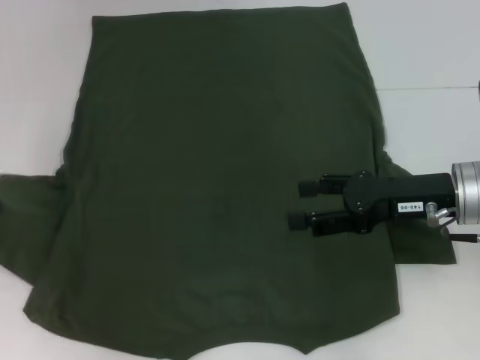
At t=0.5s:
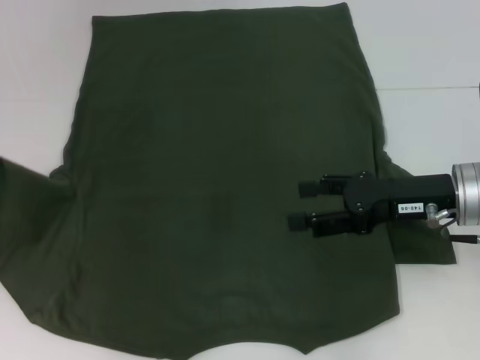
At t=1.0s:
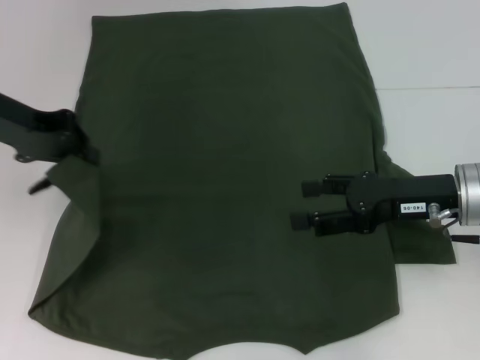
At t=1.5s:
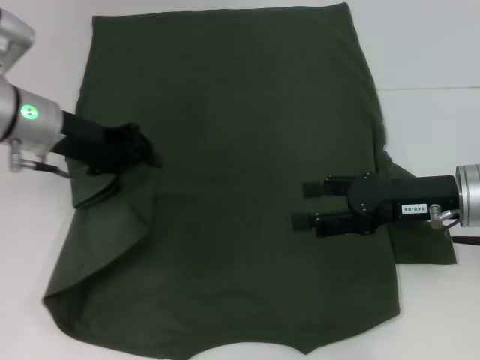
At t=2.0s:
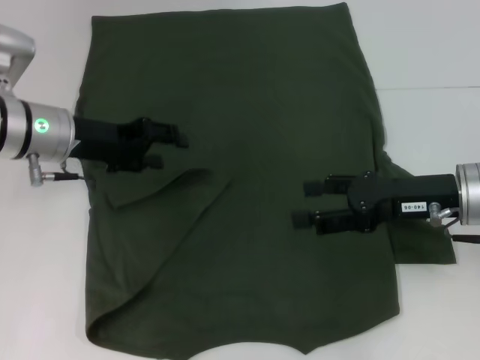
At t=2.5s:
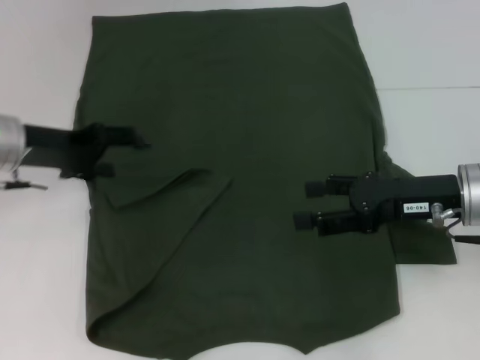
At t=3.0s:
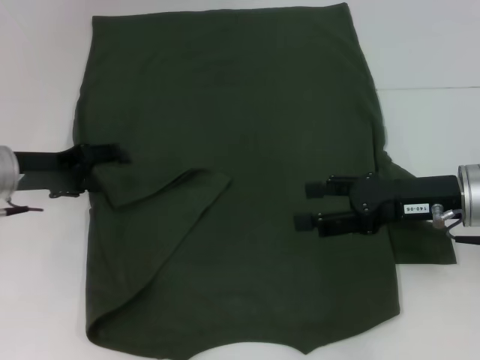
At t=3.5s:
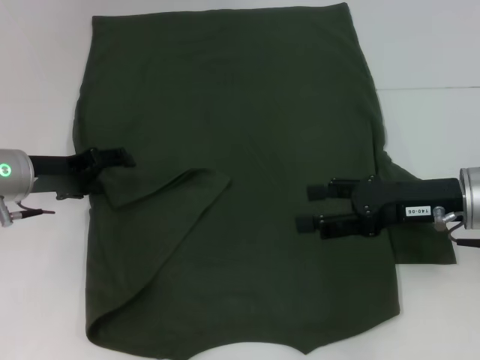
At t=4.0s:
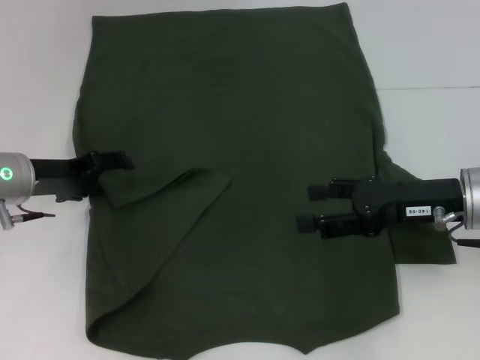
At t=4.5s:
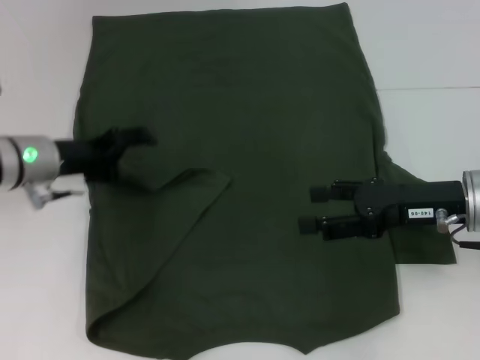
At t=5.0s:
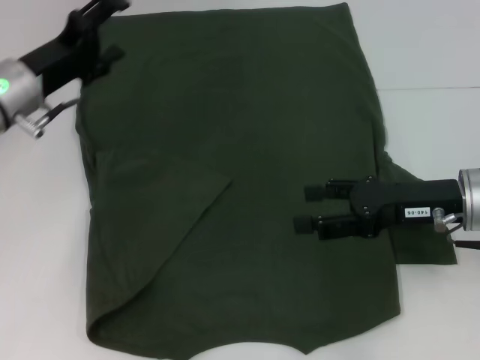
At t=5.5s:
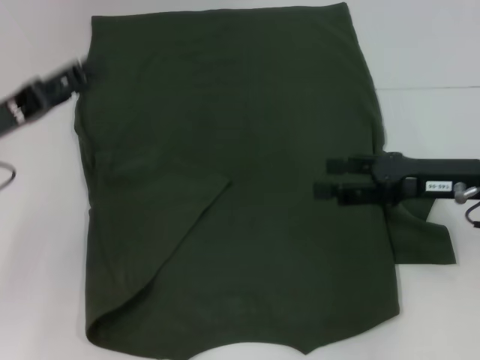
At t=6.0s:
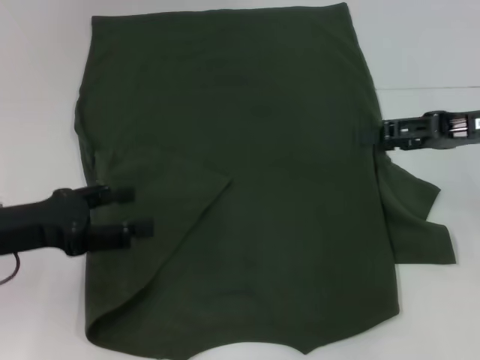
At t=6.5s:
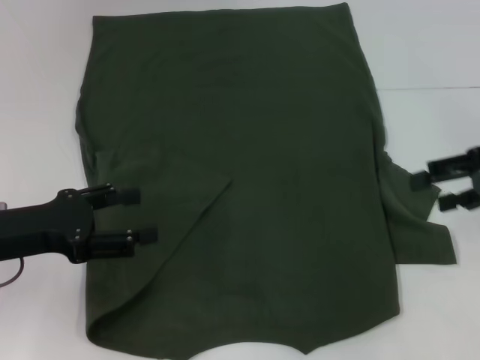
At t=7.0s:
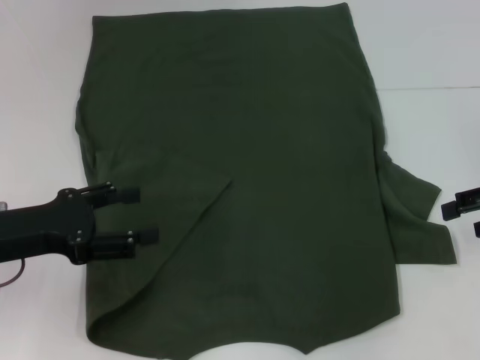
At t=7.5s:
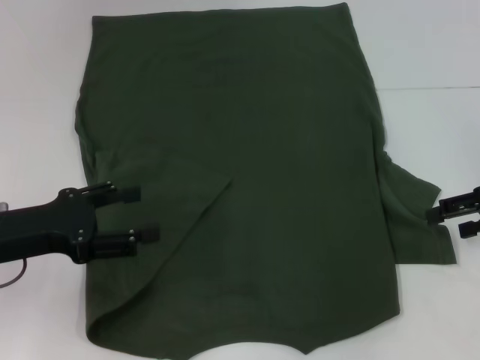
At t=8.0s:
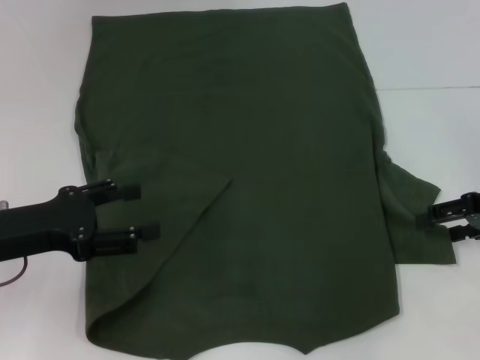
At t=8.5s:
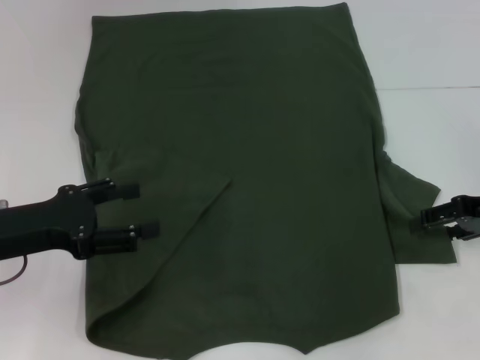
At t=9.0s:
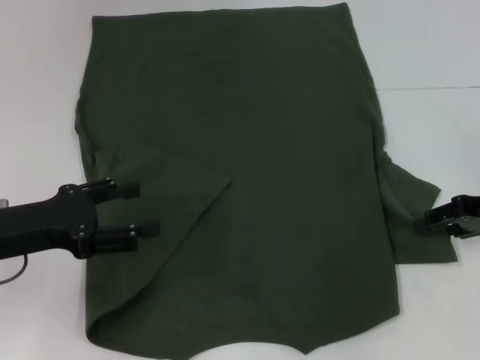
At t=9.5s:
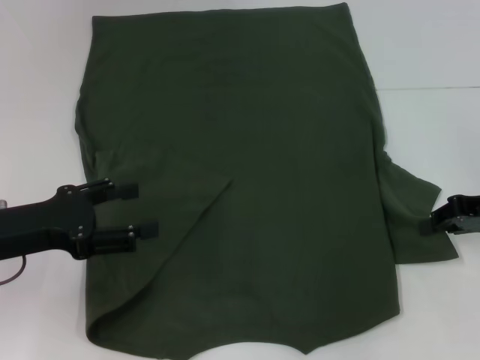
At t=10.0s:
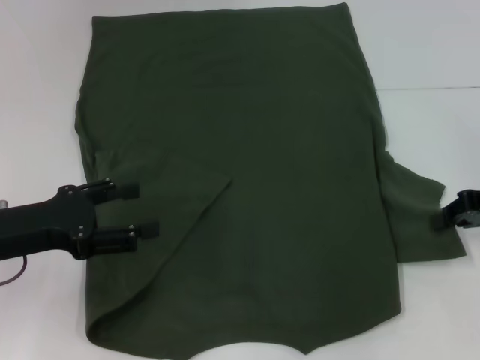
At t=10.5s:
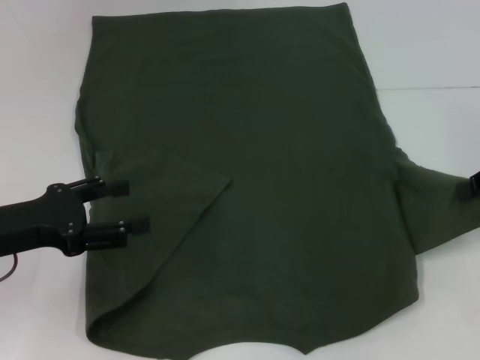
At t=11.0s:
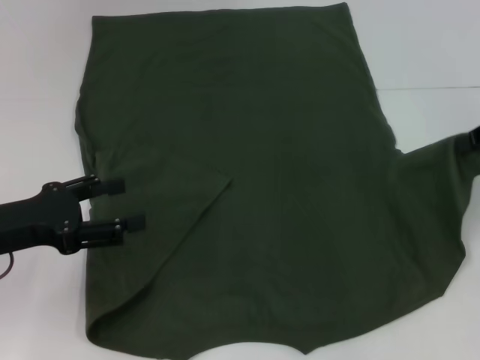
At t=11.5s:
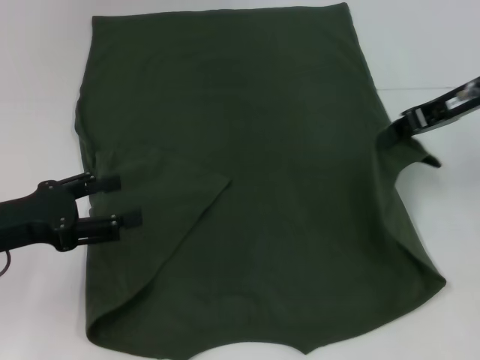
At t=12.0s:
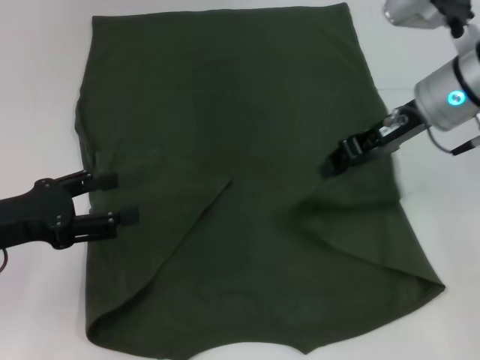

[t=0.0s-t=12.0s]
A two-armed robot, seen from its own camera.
Step, t=0.0s to t=5.0s: Fold the bottom left sleeve with your left hand.
t=0.0s to t=2.0s: The left gripper moves to the right, about 15 cm, and opens its fingers.
t=2.0s to t=4.0s: The left gripper moves downward, some 5 cm, and opens its fingers.
t=4.0s to t=6.0s: The right gripper heads upward and to the right, covering approximately 10 cm. The left gripper is displaced backward by about 10 cm.
t=6.0s to t=8.0s: The right gripper goes roughly 5 cm downward.
t=8.0s to t=10.0s: The right gripper closes.
t=10.0s to t=12.0s: The right gripper heads to the left, forward and upward, covering some 15 cm.

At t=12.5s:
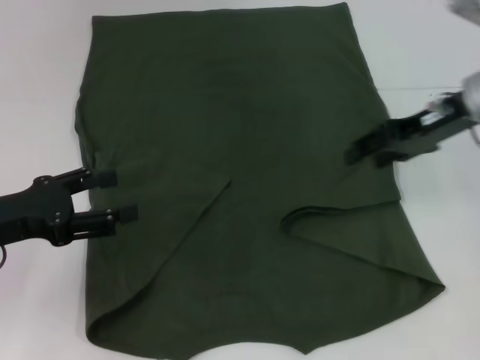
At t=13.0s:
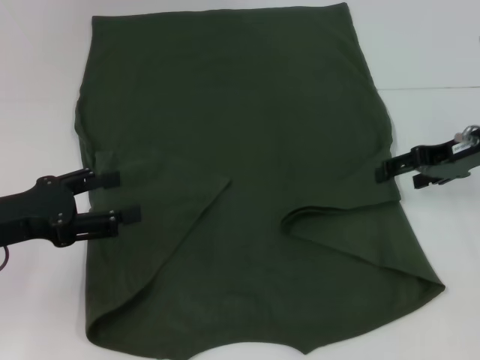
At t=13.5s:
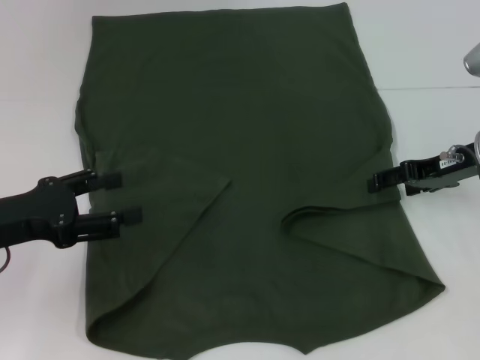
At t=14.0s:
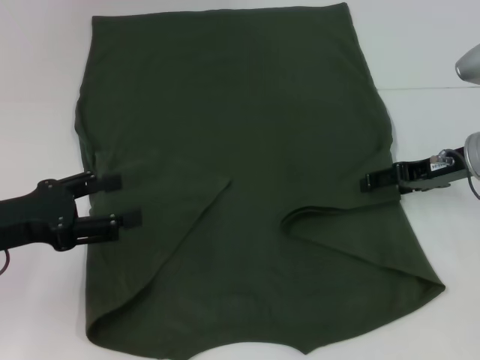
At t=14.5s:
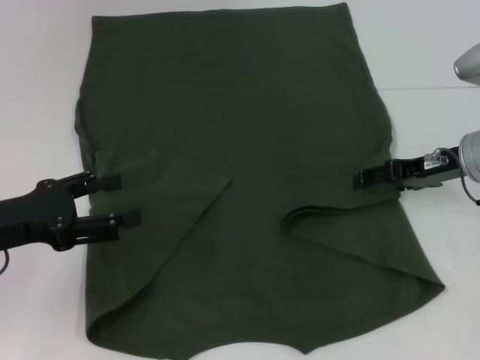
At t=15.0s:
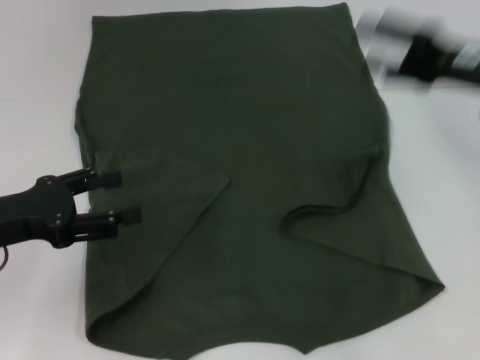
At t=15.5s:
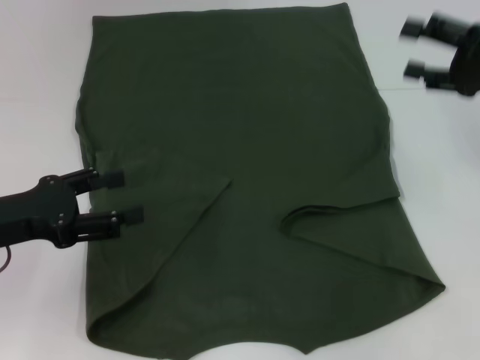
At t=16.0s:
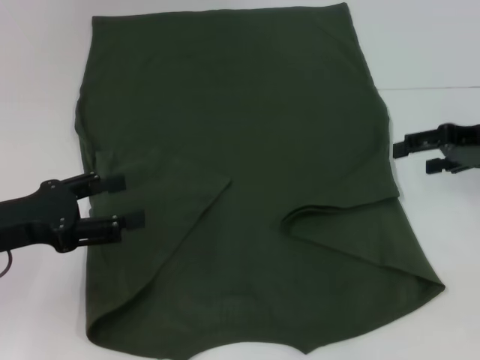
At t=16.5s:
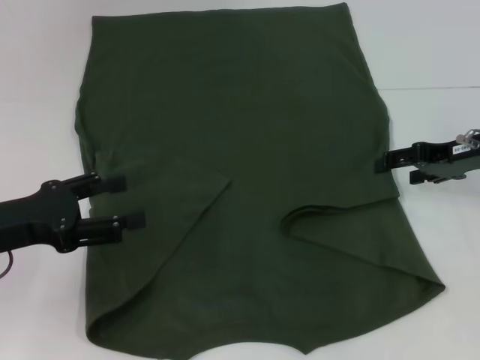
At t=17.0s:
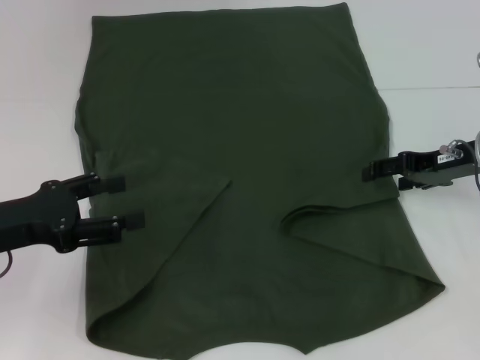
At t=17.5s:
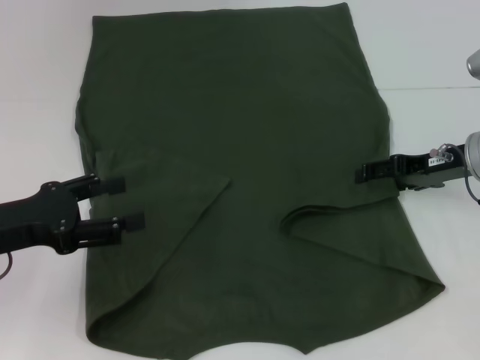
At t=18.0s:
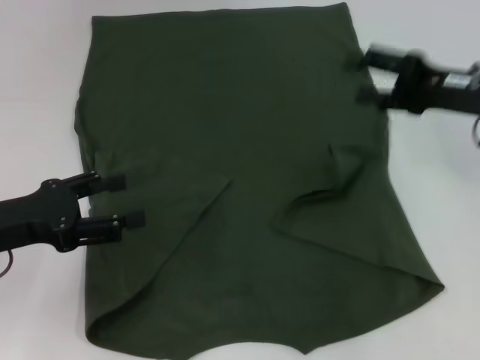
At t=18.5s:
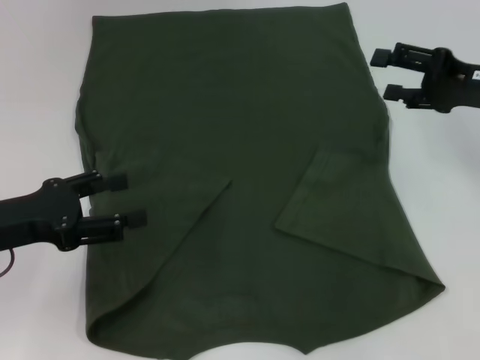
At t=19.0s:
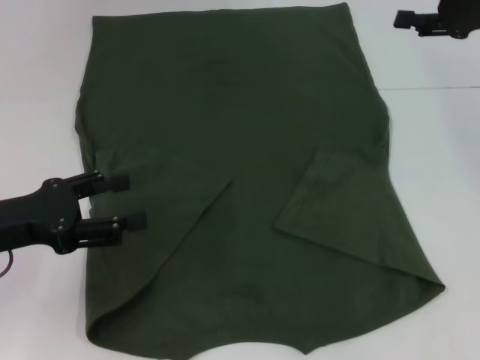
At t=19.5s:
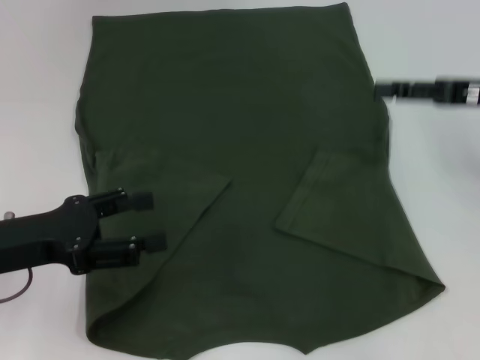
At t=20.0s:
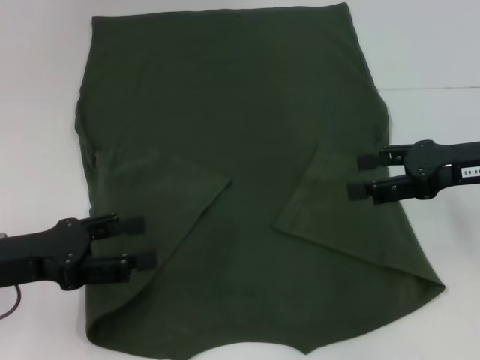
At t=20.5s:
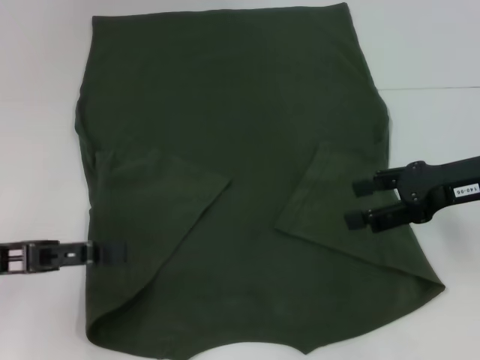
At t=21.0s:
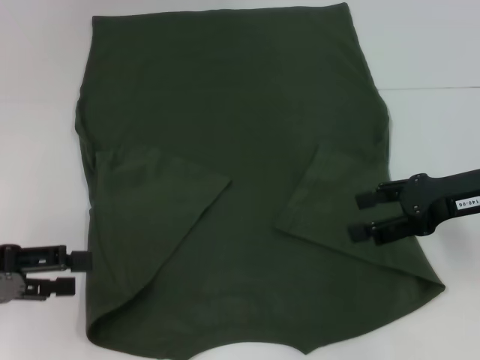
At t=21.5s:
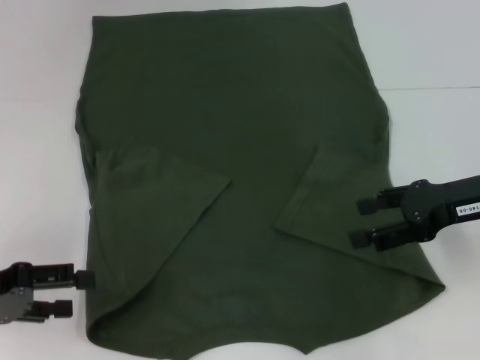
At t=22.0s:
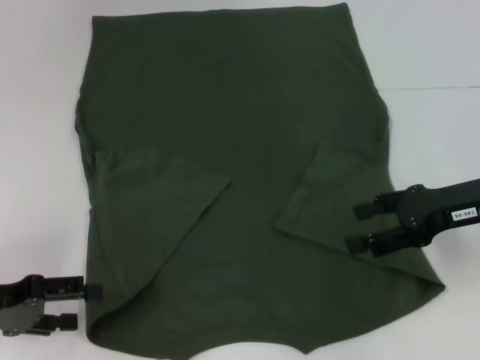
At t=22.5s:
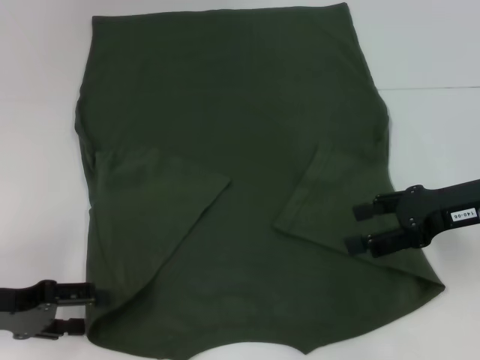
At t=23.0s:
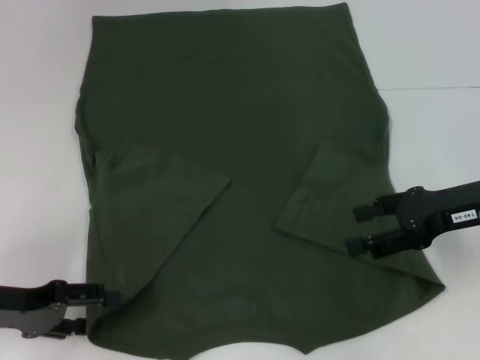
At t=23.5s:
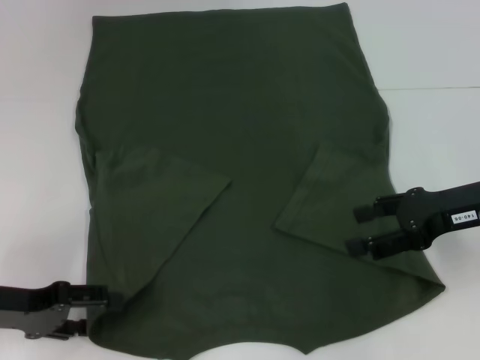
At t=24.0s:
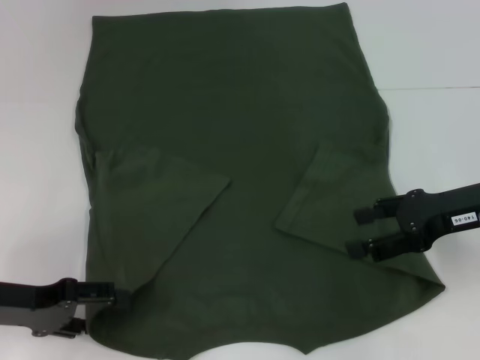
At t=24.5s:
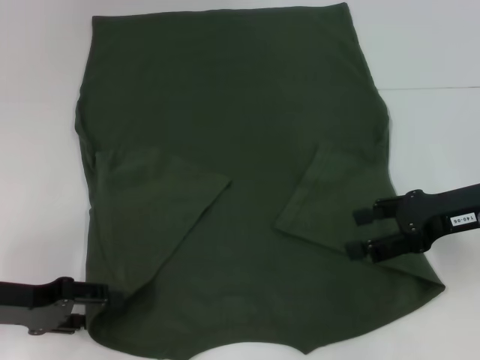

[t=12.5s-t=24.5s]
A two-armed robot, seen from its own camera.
Step, t=12.5s to t=18.5s: Fold the bottom right sleeve with your right hand.
t=12.5s to t=14.5s: The right gripper heads downward, covering some 10 cm, and opens.
t=18.5s to t=20.5s: The right gripper travels upward and back again, about 5 cm each way.
t=20.5s to t=22.5s: The left gripper goes approximately 5 cm downward.
t=22.5s to t=24.5s: The grippers stay close to where they were, moving slightly.

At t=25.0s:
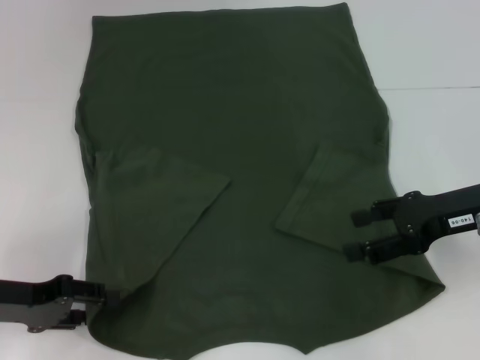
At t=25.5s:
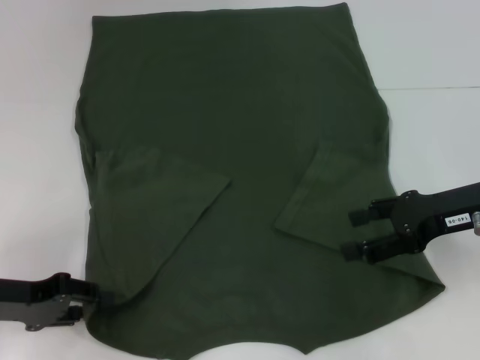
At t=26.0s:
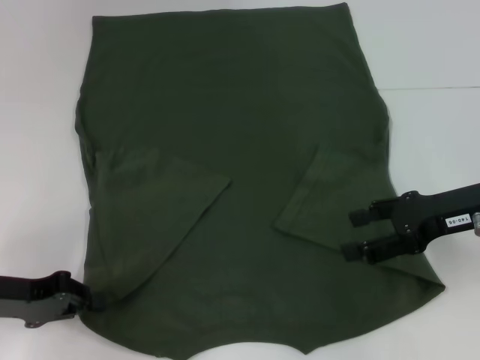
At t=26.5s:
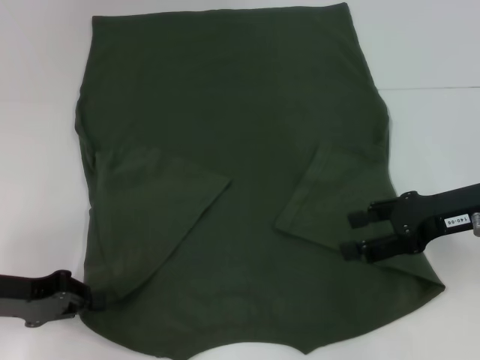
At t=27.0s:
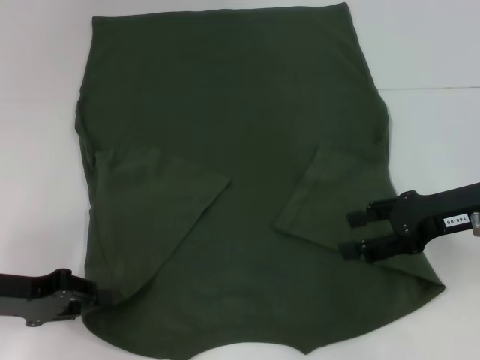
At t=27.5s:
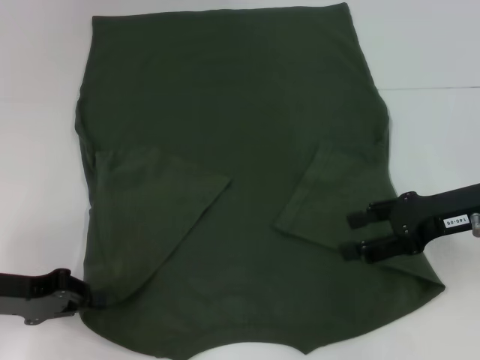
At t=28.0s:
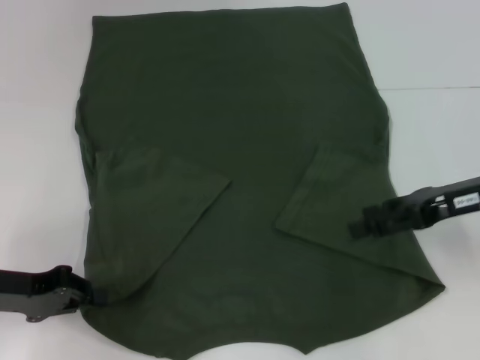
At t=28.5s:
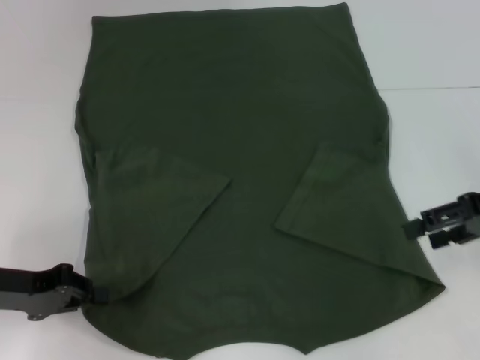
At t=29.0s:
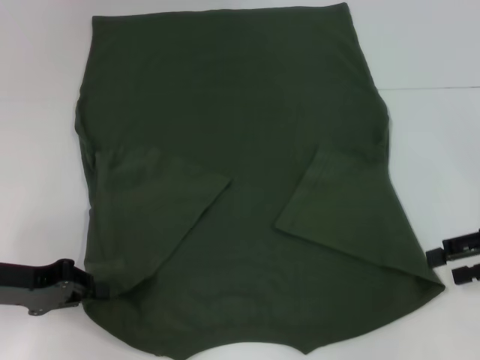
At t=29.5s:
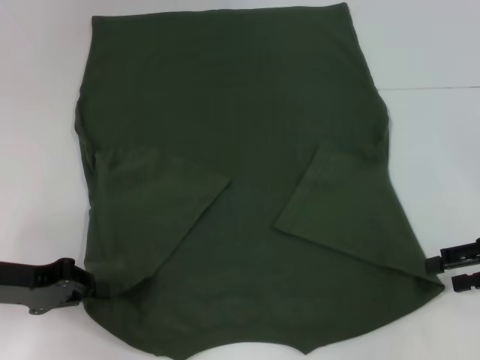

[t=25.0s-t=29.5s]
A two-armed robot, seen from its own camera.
t=25.0s to t=27.0s: The left gripper closes up.
t=27.0s to t=29.5s: The right gripper shifts approximately 10 cm to the right.